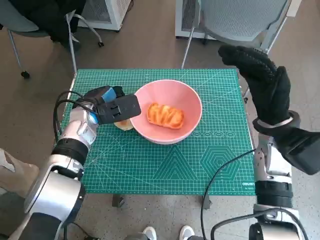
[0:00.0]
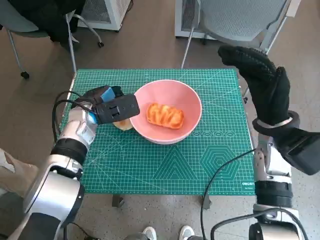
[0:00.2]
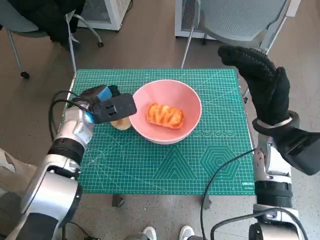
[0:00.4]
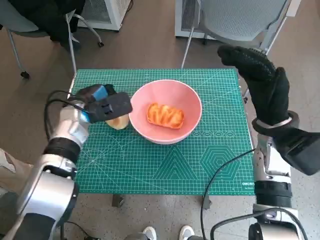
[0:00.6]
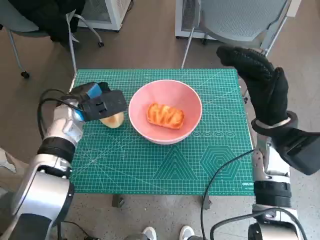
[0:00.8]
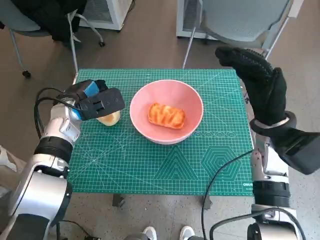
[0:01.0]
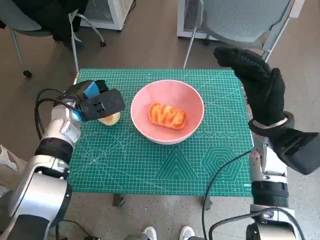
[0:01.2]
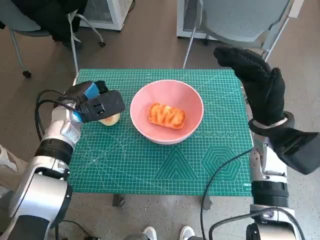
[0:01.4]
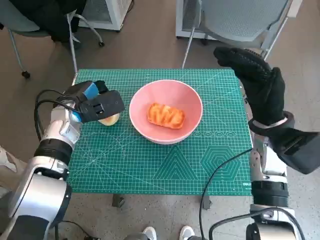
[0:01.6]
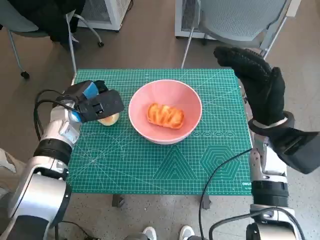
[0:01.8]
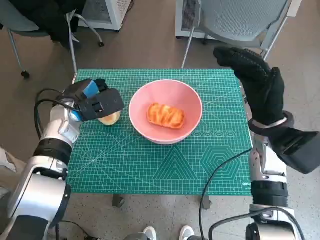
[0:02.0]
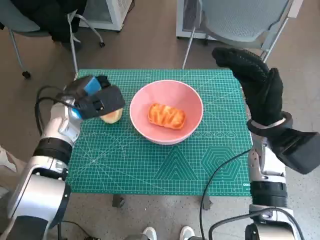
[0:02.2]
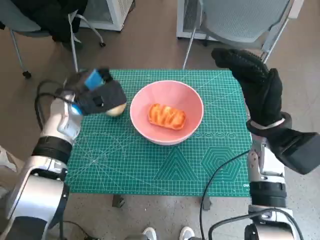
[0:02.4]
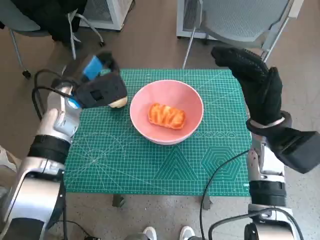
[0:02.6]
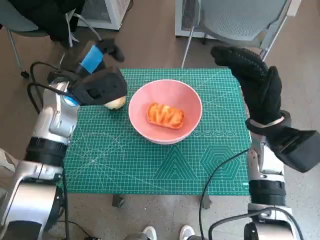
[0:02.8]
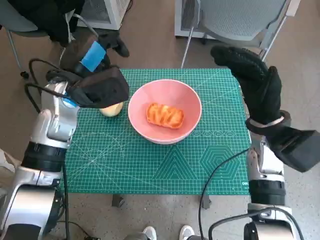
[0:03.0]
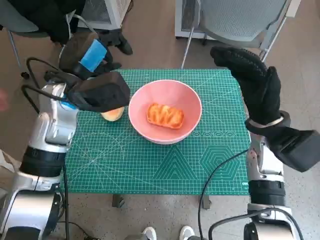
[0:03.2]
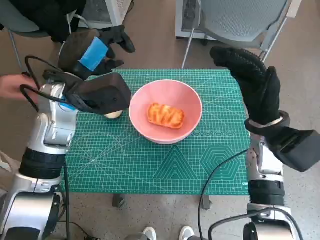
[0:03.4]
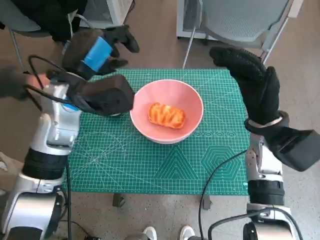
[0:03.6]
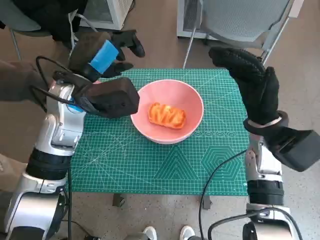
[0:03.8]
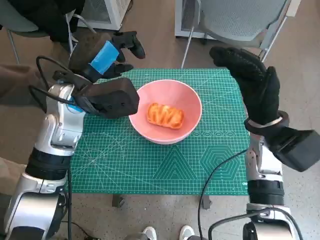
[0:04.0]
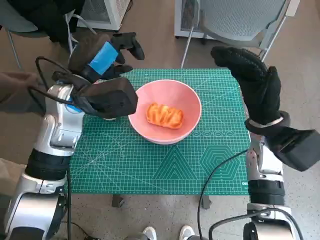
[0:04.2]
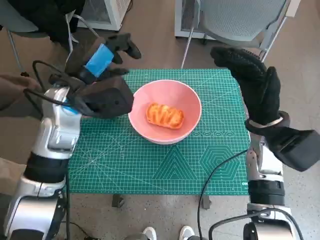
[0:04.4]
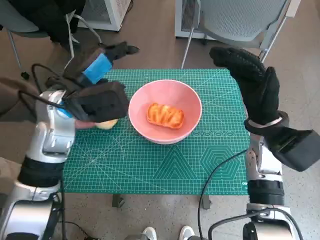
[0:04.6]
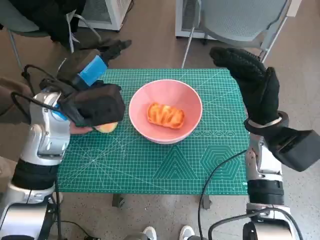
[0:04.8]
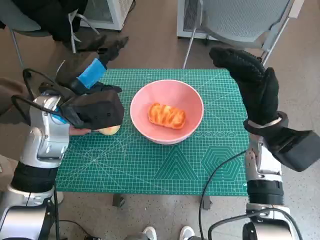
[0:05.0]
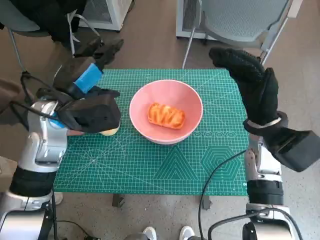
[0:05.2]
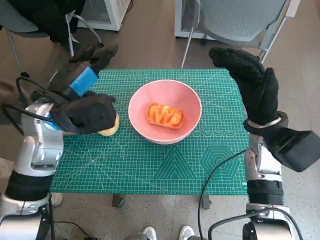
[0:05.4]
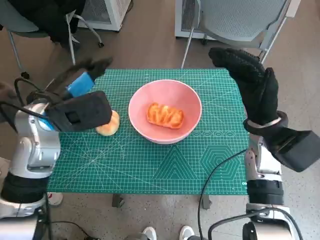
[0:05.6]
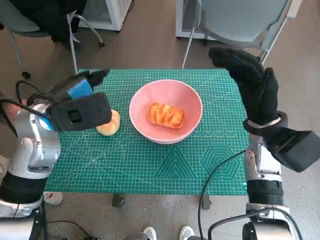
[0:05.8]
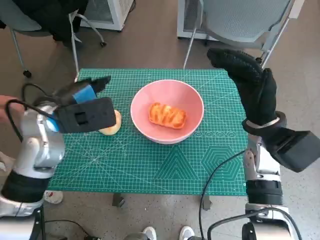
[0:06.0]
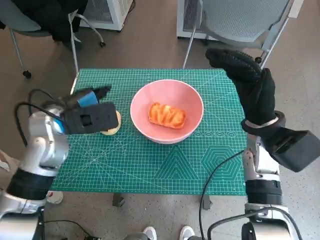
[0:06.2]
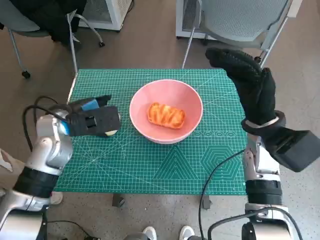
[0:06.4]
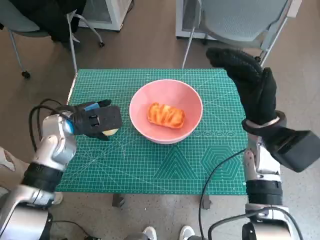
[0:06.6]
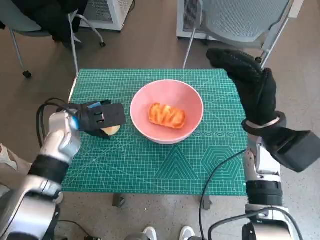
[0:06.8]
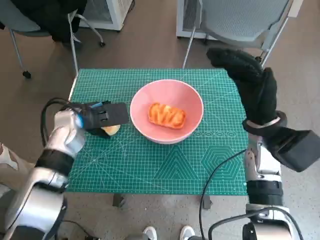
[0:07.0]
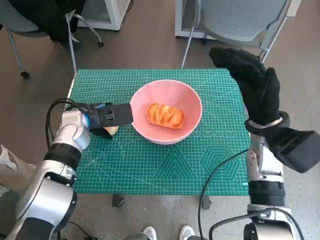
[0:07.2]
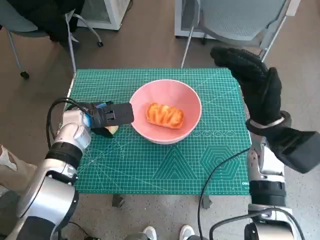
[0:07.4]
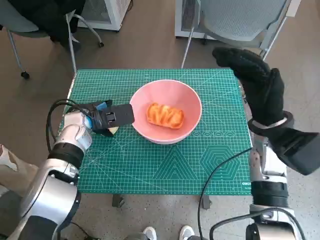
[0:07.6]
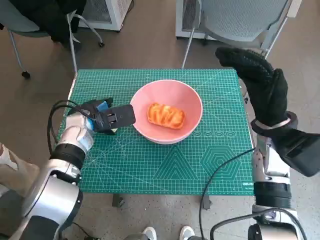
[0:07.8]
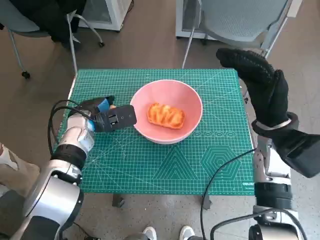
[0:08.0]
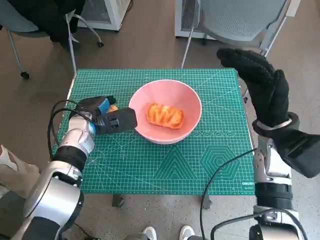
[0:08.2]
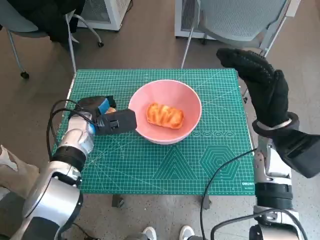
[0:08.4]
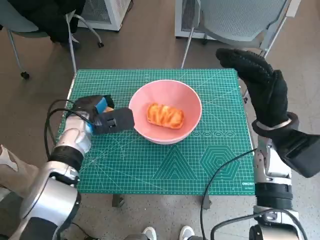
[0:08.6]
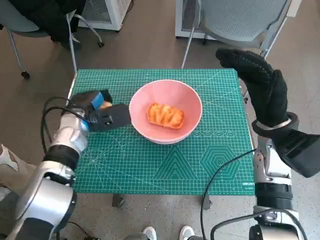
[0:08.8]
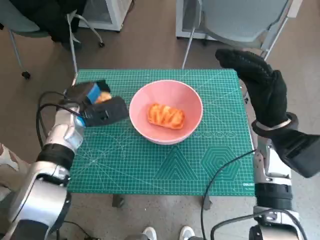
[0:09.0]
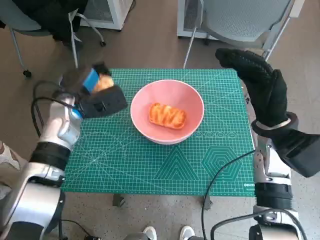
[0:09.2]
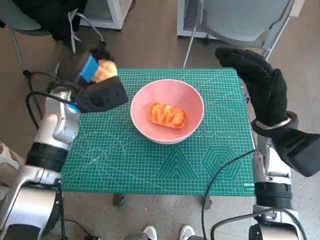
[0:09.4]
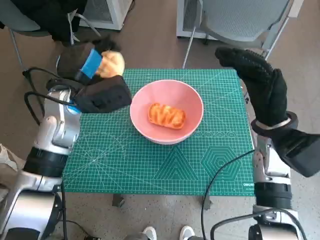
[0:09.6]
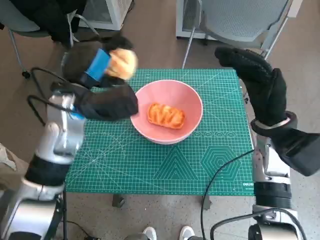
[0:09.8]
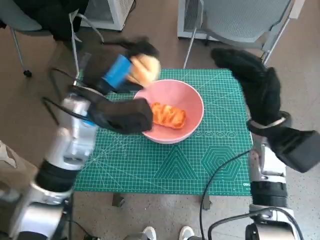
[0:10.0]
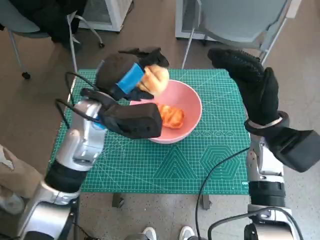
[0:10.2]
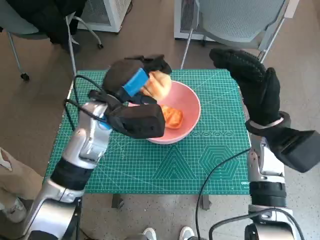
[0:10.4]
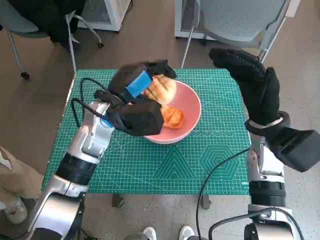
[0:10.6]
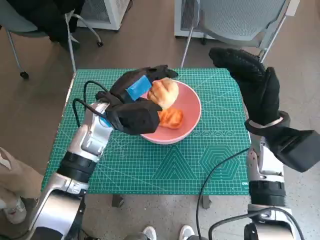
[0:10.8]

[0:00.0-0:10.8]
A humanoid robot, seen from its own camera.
Step, 0:00.0 to 0:08.2: Grasp the round bread with left hand.
0:00.0 to 0:01.6: The hands make only small movements.
0:01.6 to 0:03.0: The left hand shifts roughly 10 cm upward.
0:03.0 to 0:04.6: The hands stay close to where they were, moving slightly.
0:04.6 to 0:06.2: The left hand ends up about 5 cm from where it was.
0:06.2 to 0:07.8: The left hand shifts roughly 10 cm downward.
0:09.2 to 0:10.8: The left hand shifts some 10 cm to the right.

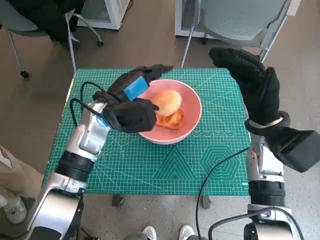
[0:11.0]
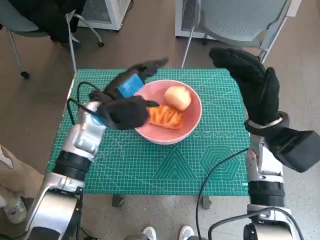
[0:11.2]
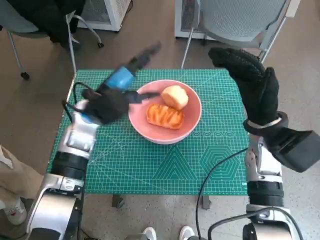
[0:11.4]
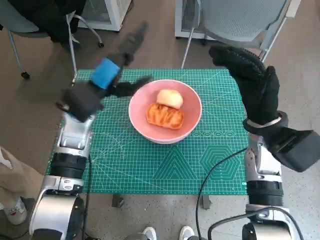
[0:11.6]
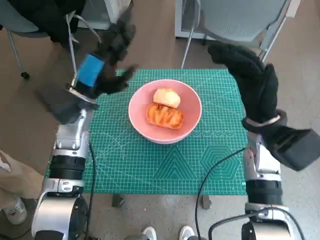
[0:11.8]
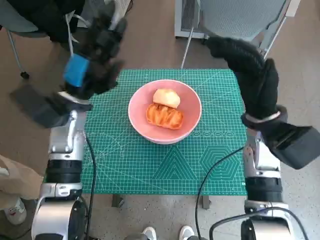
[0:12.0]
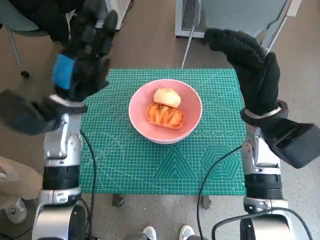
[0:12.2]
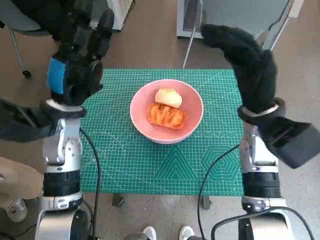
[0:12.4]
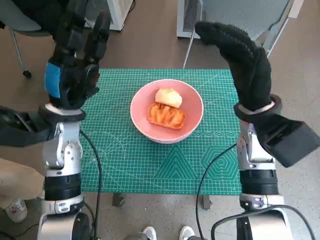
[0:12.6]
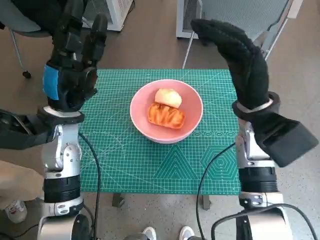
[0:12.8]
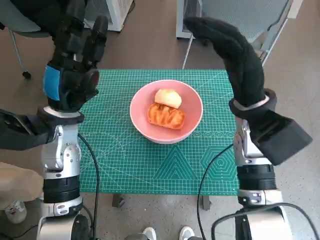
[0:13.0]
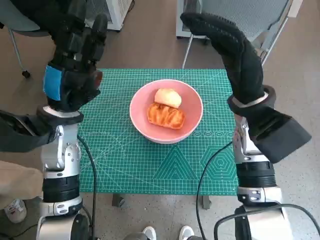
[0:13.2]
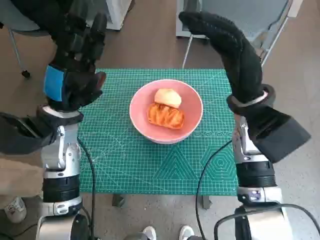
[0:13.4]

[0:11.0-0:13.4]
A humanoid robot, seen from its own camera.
0:11.0 to 0:12.2: The left hand heads to the left, covering some 5 cm.
